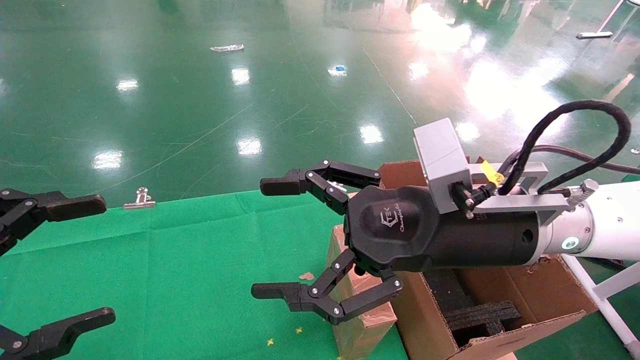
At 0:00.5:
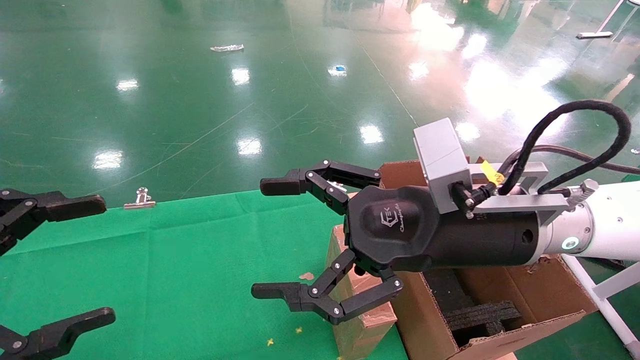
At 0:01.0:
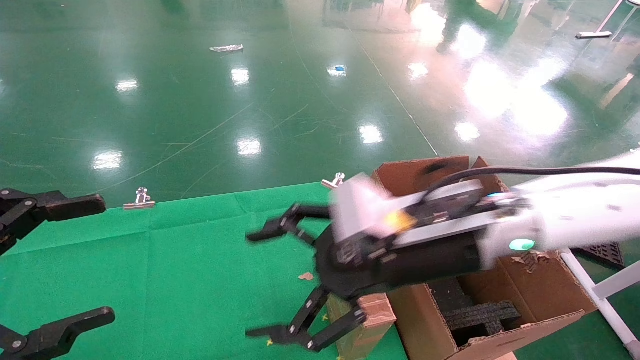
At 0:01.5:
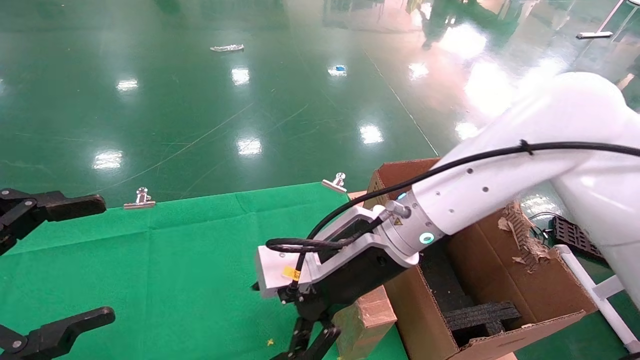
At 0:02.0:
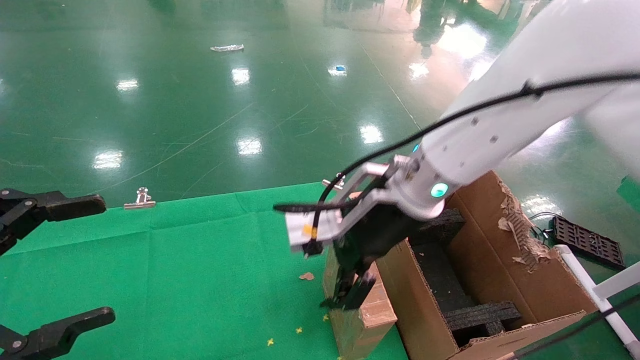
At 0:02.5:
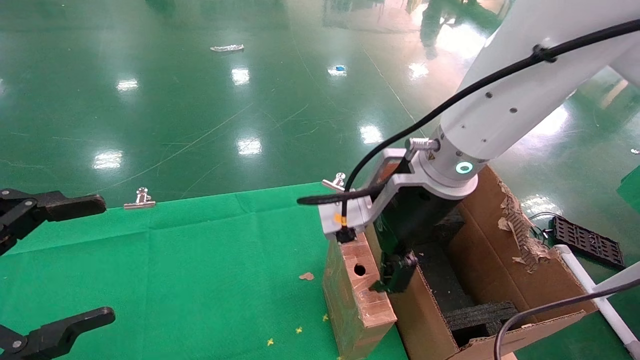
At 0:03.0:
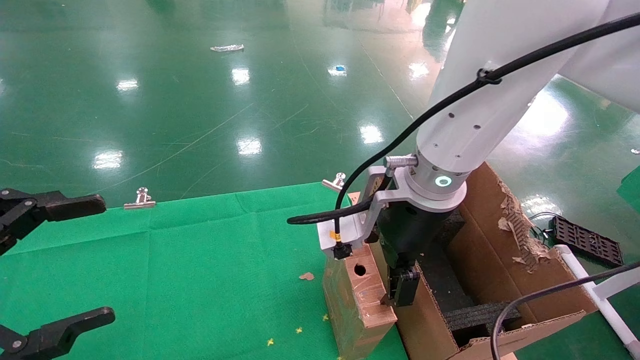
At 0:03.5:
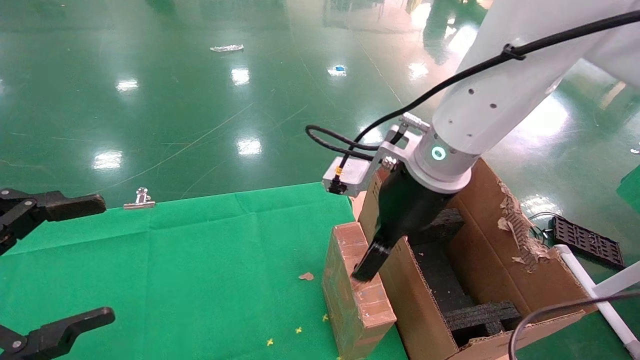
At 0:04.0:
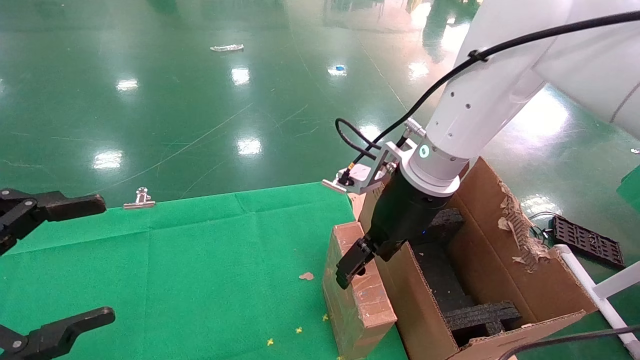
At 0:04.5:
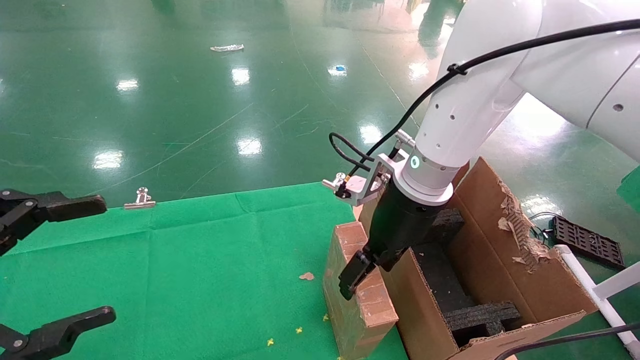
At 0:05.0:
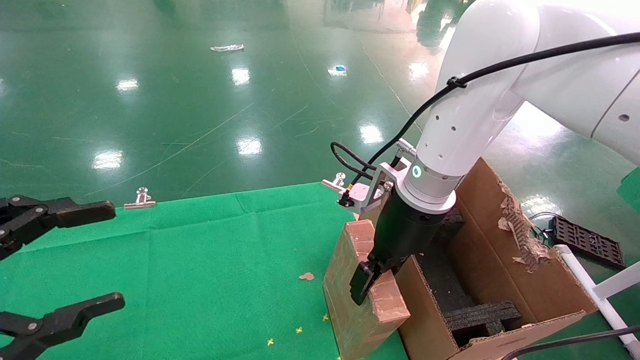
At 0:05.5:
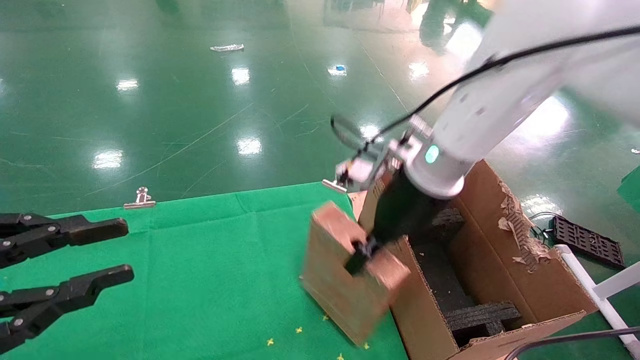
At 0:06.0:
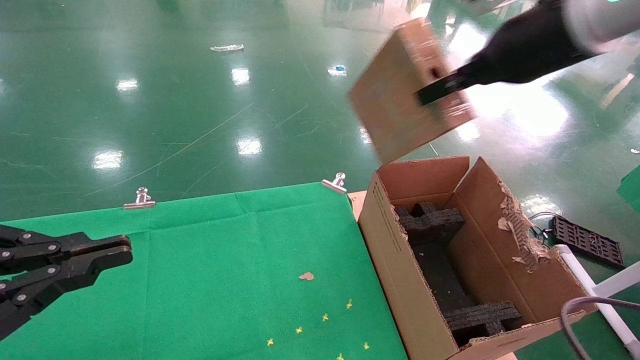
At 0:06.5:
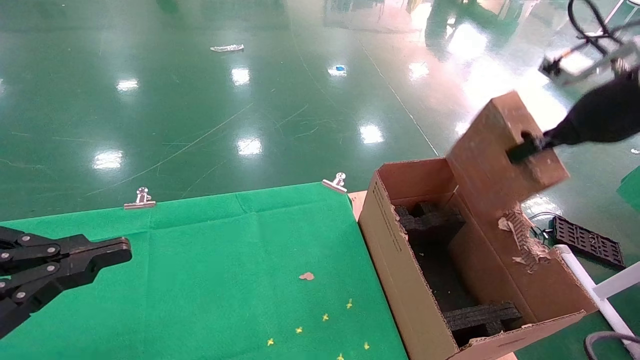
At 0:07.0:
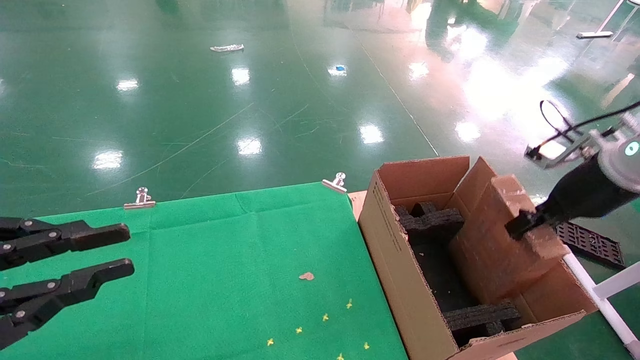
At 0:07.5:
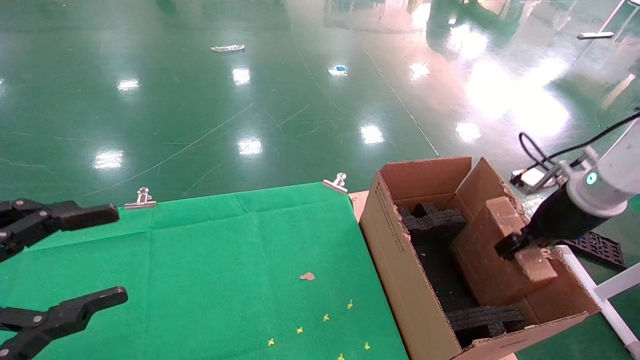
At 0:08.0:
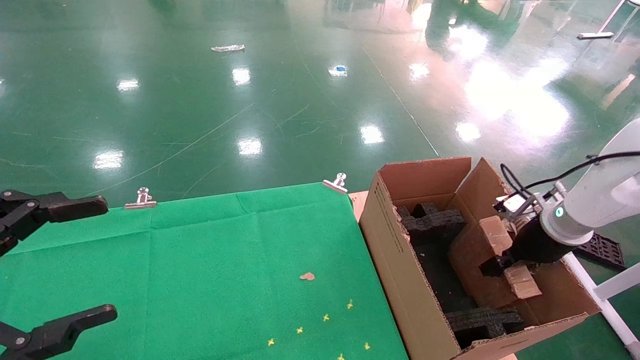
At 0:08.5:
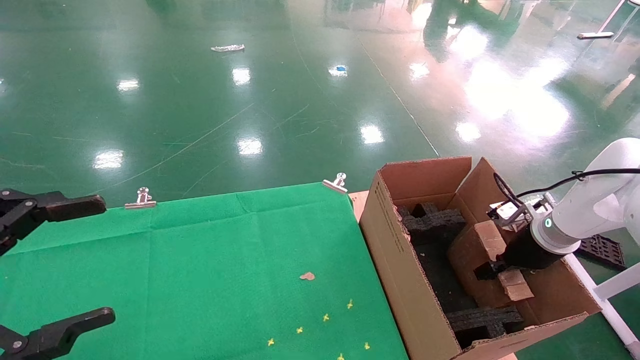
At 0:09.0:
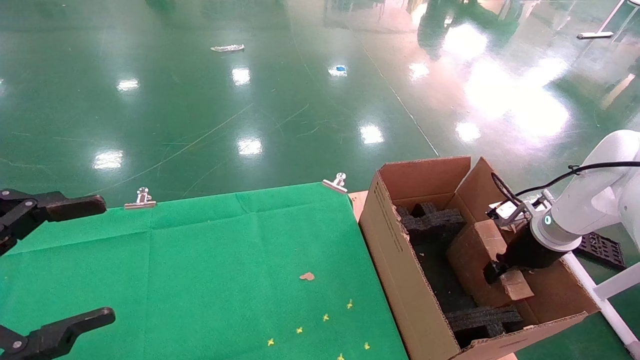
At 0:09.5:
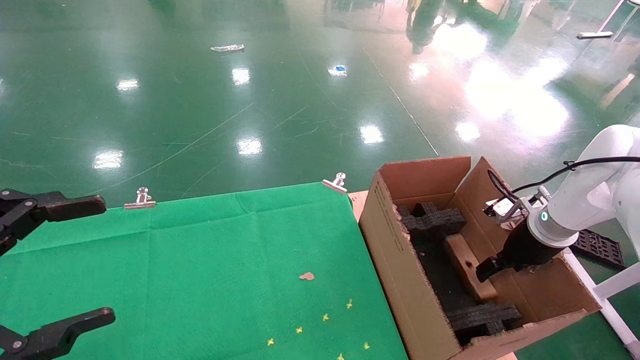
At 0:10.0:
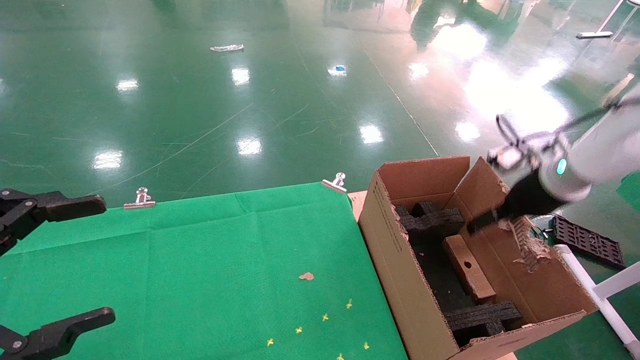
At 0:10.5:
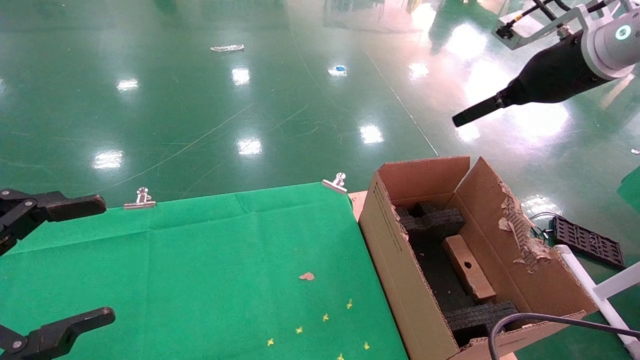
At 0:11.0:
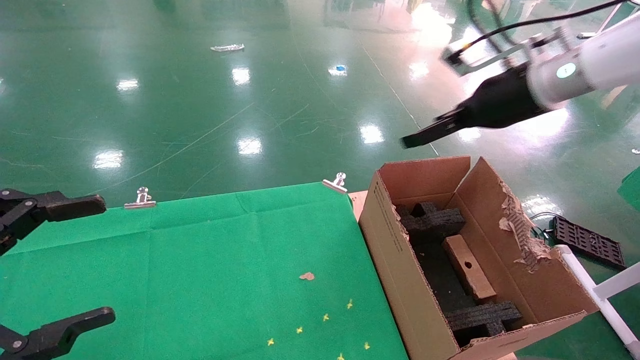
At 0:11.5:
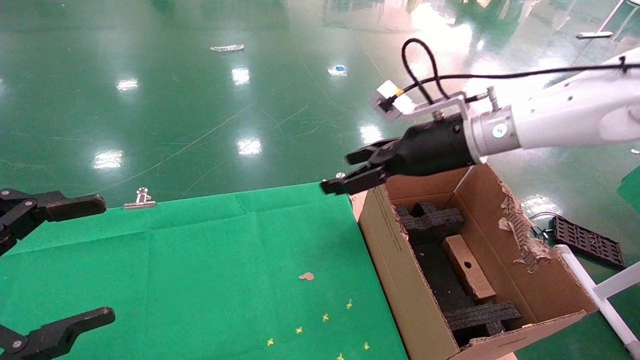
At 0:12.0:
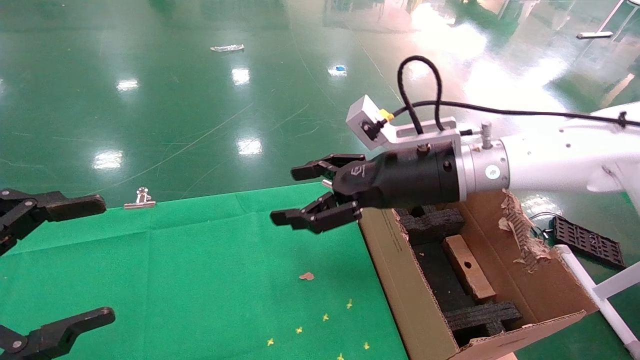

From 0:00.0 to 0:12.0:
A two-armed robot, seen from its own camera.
Task of the whole recording: using a robotic arm to pick up a cardboard box and palace it the carton.
Step, from 0:01.0 to 0:05.5: Pick up the mouse and the power cord paper box.
Step, from 0:06.0 to 0:10.5: Place the mouse and the power cord paper box into the container.
From 0:00.0 to 0:02.0: The right gripper shifts roughly 10 cm forward and to the left.
From 0:02.0 to 0:04.0: The right gripper ends up roughly 5 cm from where it was.
From 0:04.0 to 0:06.0: The left gripper closes. The right gripper goes roughly 20 cm upward and to the right, and closes up.
From 0:06.0 to 0:08.0: The left gripper opens; the right gripper goes about 30 cm downward and to the right.
From 0:08.0 to 0:10.0: The right gripper goes approximately 10 cm upward, and opens.
From 0:10.0 to 0:12.0: The right gripper is displaced to the left by about 20 cm.

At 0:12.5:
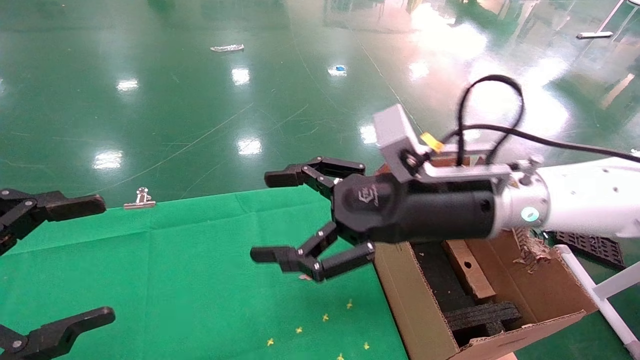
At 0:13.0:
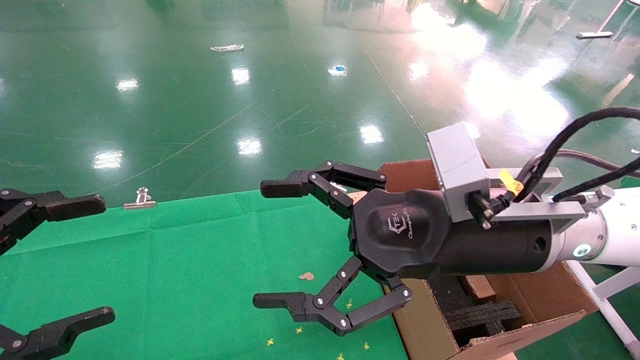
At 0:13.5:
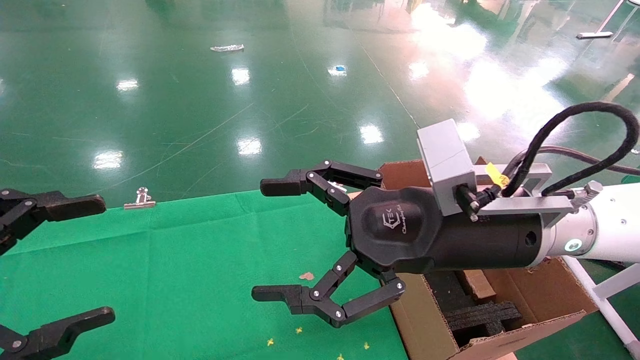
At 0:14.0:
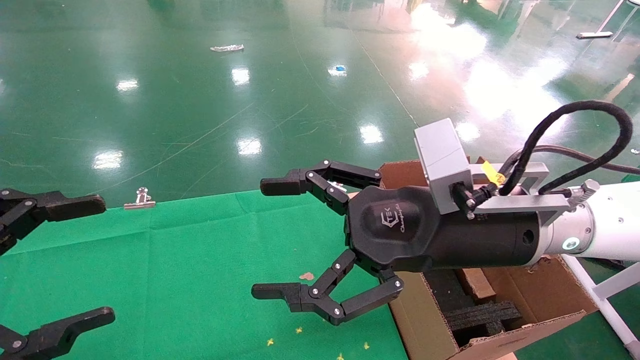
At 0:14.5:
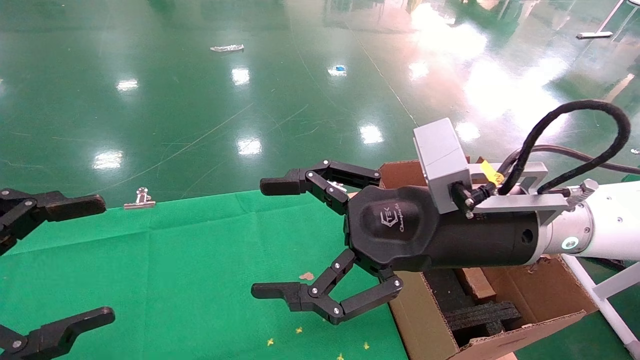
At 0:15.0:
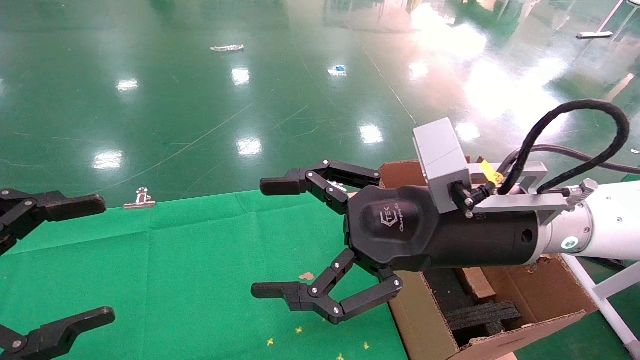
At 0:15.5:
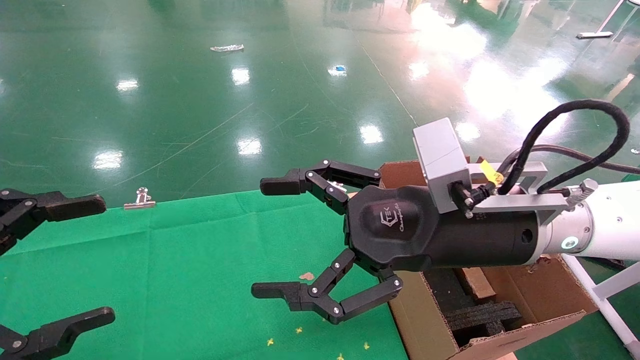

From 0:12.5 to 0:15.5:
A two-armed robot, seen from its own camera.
Task of the whole recording: using a robotic arm to pick up a cardboard box and palace it the carton.
From 0:12.5 to 0:14.0: The grippers make only small movements.
From 0:14.0 to 0:15.5: Both grippers stay about where they are.
